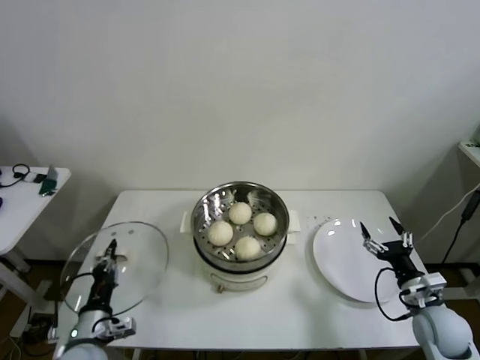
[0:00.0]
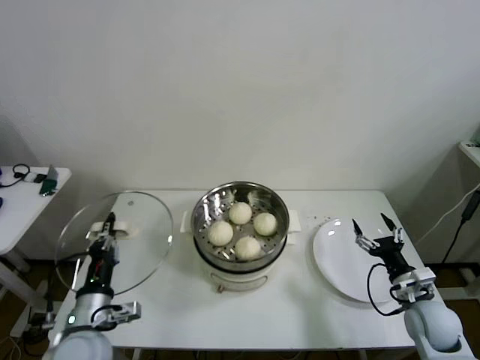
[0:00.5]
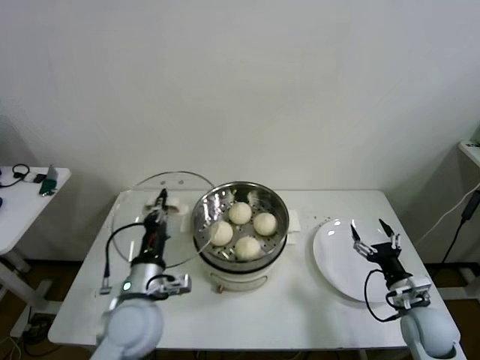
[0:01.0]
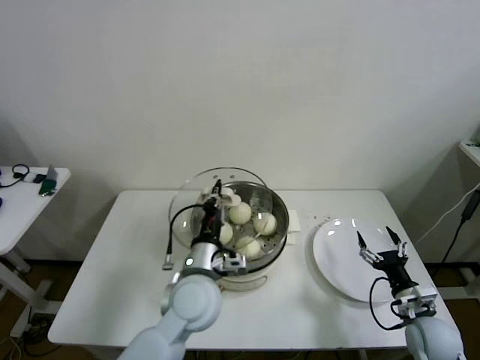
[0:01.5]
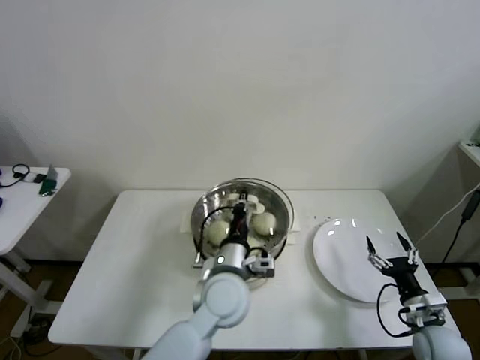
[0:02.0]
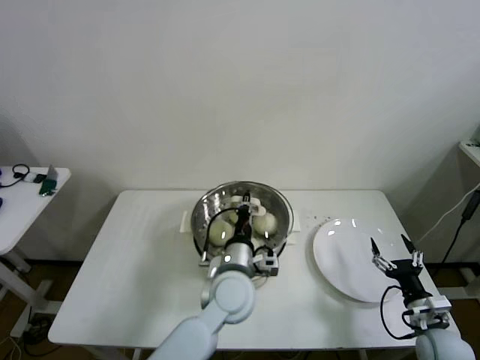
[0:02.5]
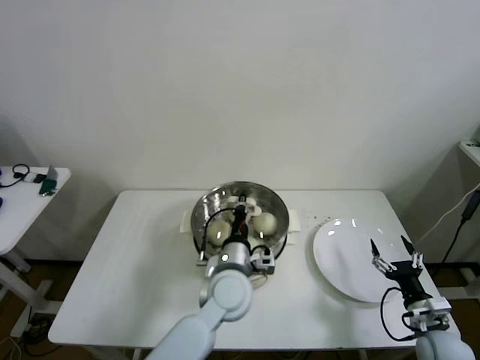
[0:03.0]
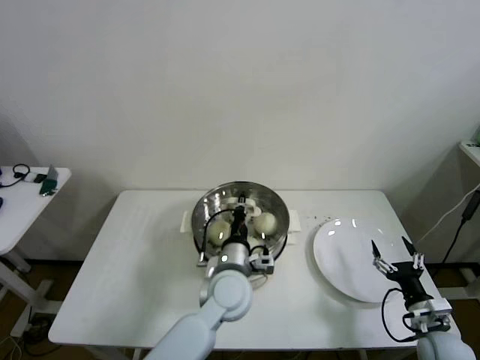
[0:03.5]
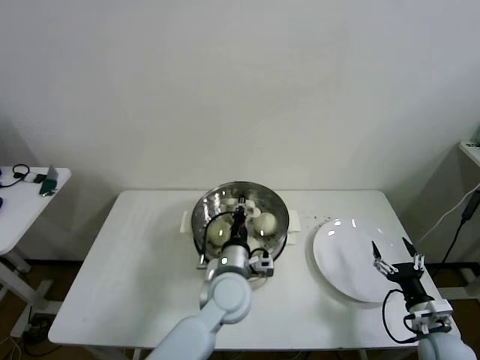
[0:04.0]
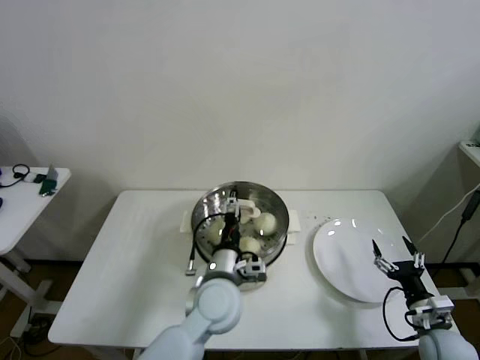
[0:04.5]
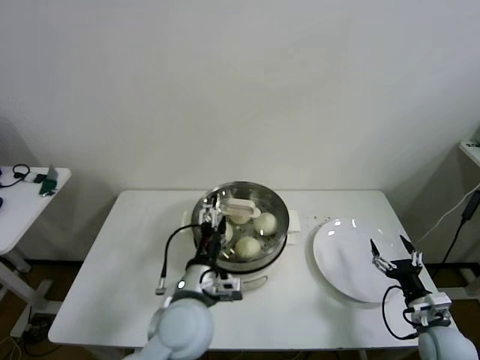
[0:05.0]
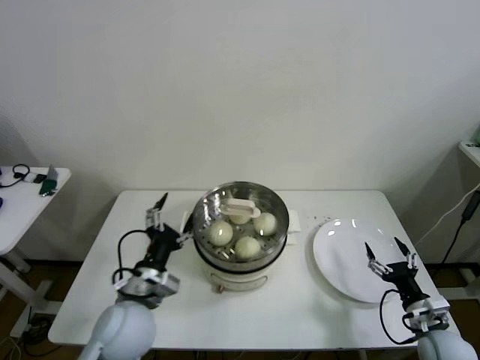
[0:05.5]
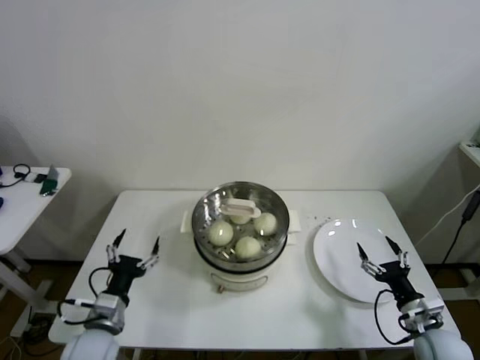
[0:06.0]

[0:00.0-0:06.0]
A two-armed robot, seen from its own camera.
Step, 0:00.0 to 0:03.5: Place the pot lid on the steamer with left gripper.
0:00.0 to 0:02.0: The left gripper goes roughly 30 cm to the right and upward.
0:02.0 to 0:04.0: The grippers move only a little.
0:04.0 to 0:06.0: The left gripper travels to the left by about 25 cm, and opens its fingers.

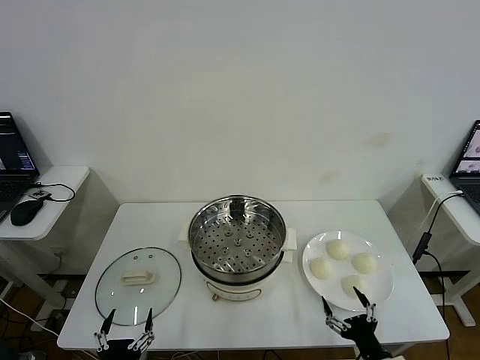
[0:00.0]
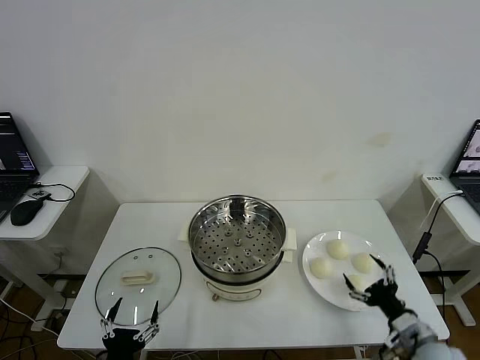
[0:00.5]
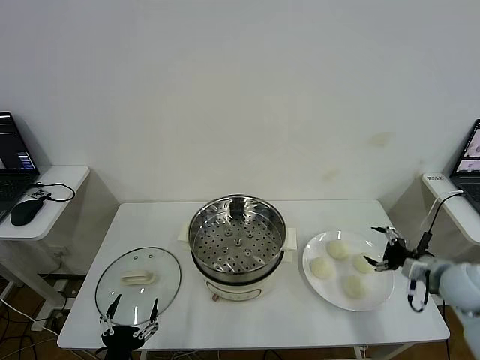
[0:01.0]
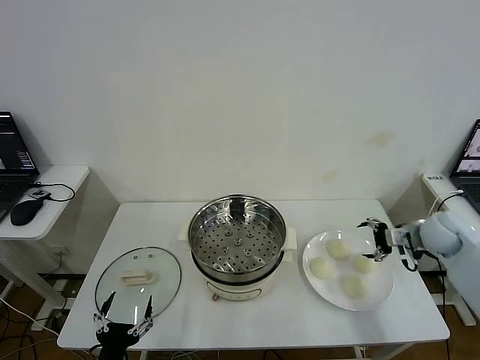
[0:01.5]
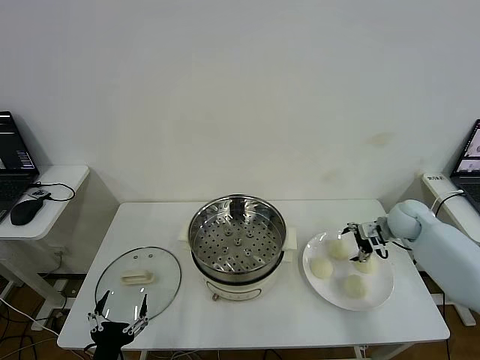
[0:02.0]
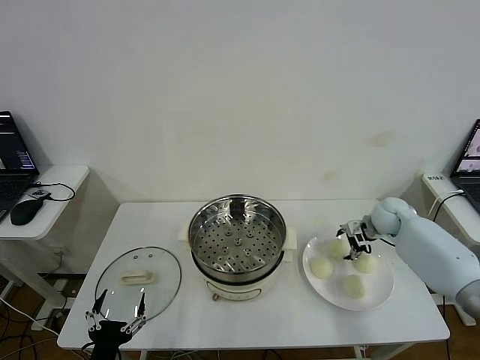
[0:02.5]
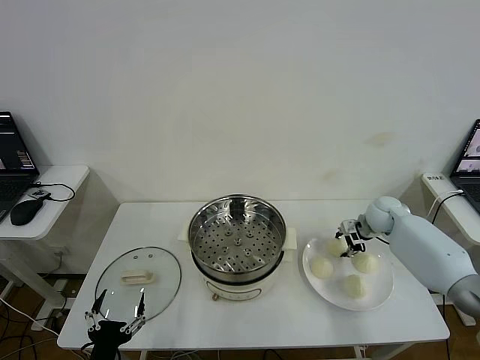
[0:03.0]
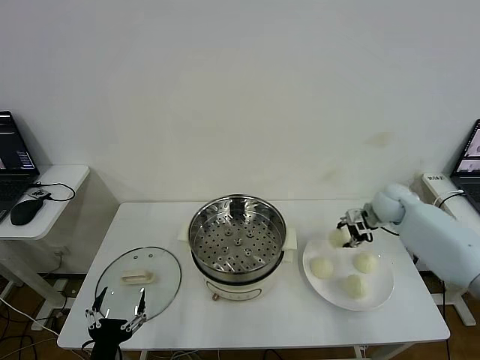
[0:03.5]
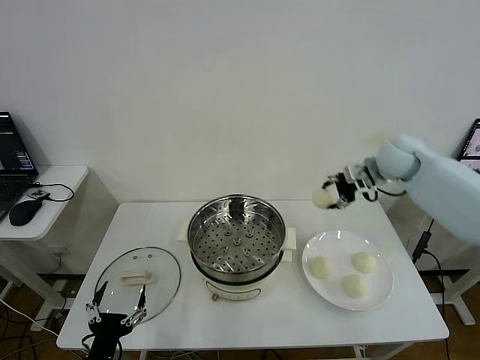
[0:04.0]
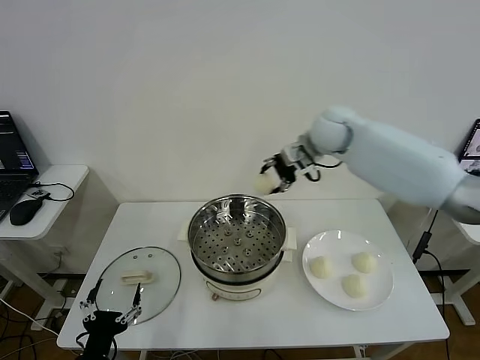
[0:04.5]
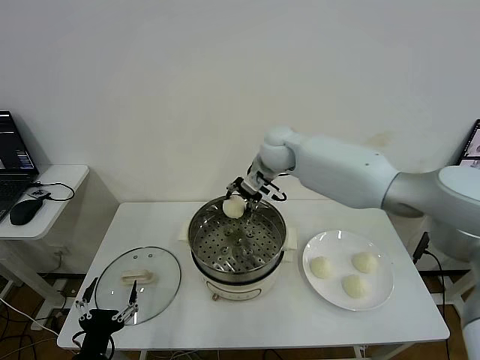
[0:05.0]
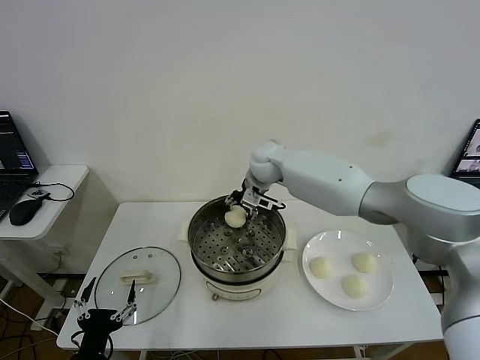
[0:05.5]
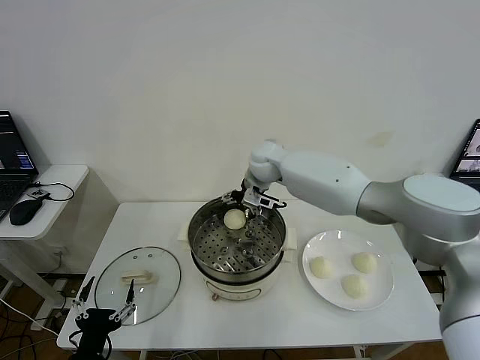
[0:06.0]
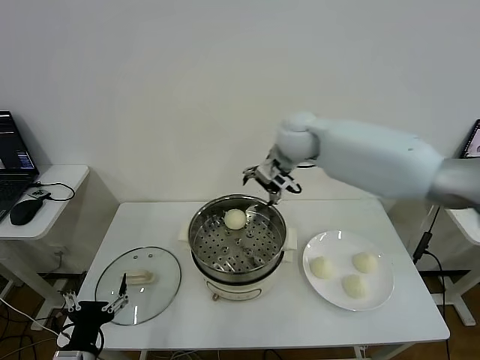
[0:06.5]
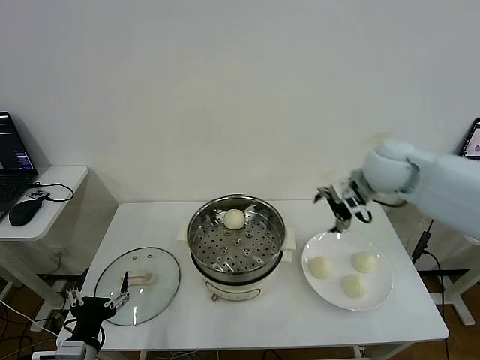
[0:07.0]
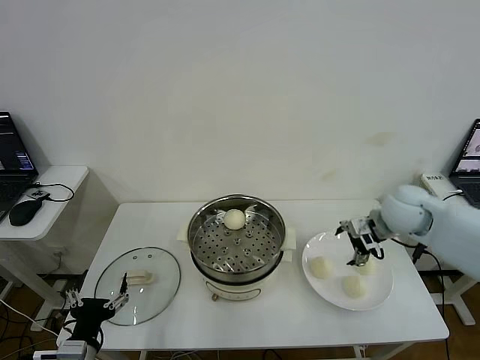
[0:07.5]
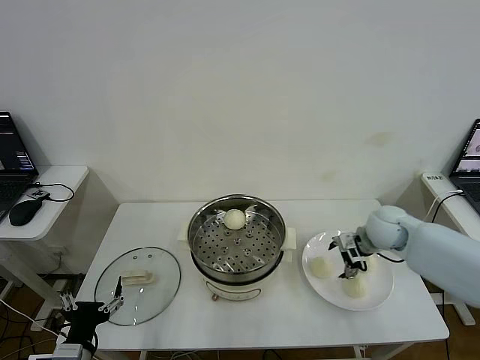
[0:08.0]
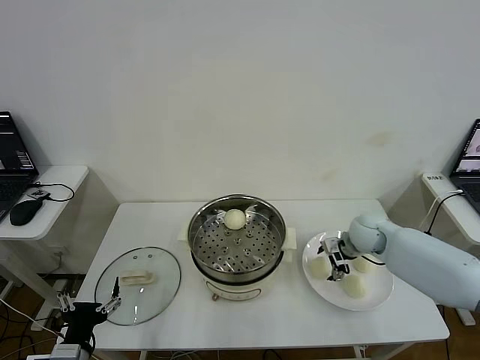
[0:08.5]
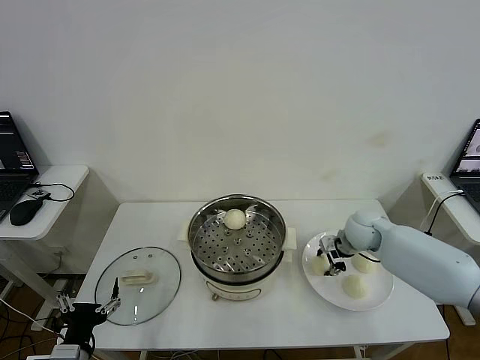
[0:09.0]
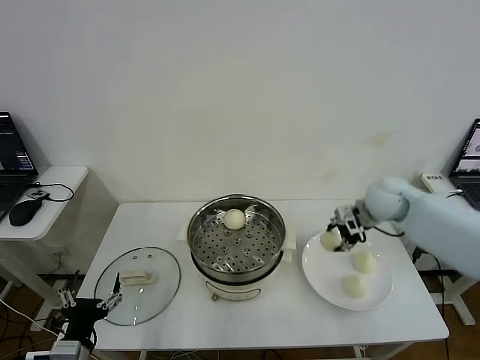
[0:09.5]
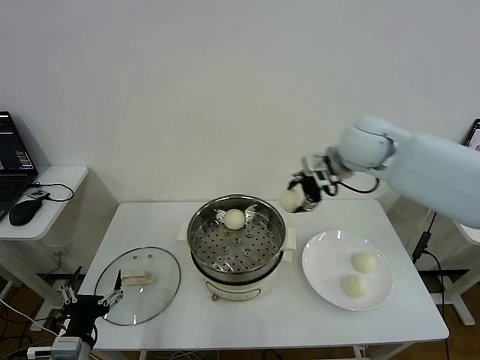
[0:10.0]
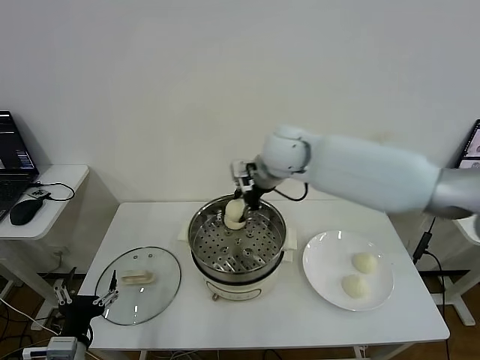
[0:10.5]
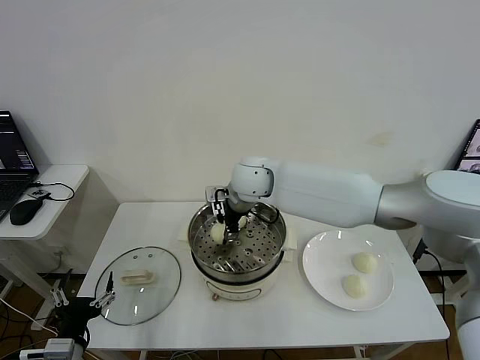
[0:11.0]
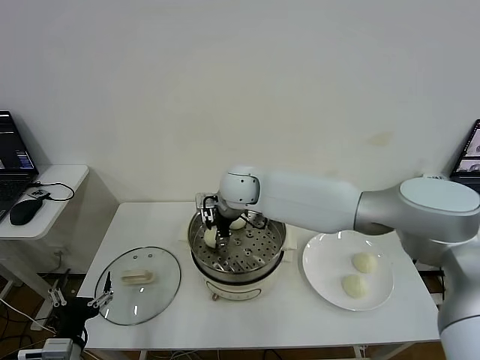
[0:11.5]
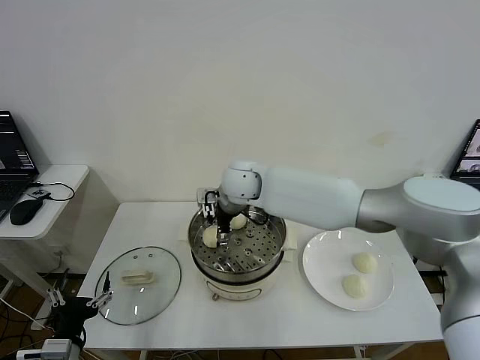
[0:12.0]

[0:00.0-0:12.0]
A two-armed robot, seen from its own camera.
Step, 0:00.0 to 0:02.5: Grasp the baozi in the plate with right gripper.
Step, 0:03.0 to 0:06.0: Place the baozi on the steamer with right gripper.
Step, 0:06.5 to 0:08.5: Grasp the baozi in the plate with right gripper.
0:02.0 to 0:04.0: The right gripper goes about 20 cm upward and to the left, and closes its fingers.
0:04.0 to 0:06.0: The right gripper shifts roughly 25 cm to the left, and opens its fingers.
0:06.0 to 0:08.0: The right gripper shifts about 30 cm to the right, backward and downward.
0:08.0 to 0:10.0: The right gripper heads upward and to the left, covering about 25 cm, and closes up.
0:10.0 to 0:12.0: The right gripper moves to the left and downward, approximately 20 cm, and opens its fingers.

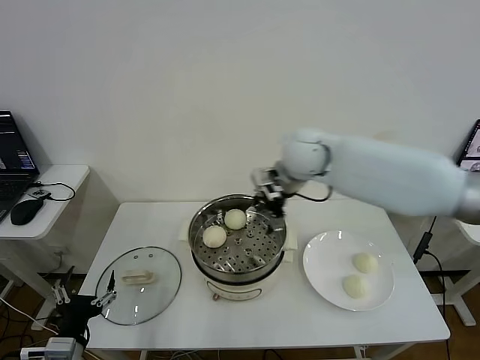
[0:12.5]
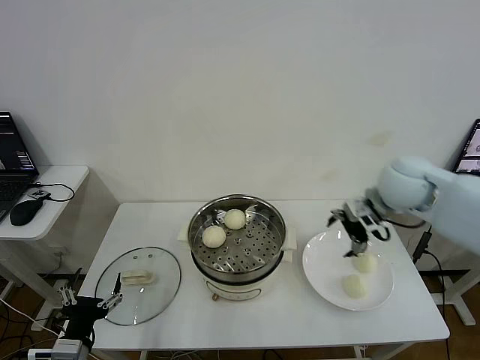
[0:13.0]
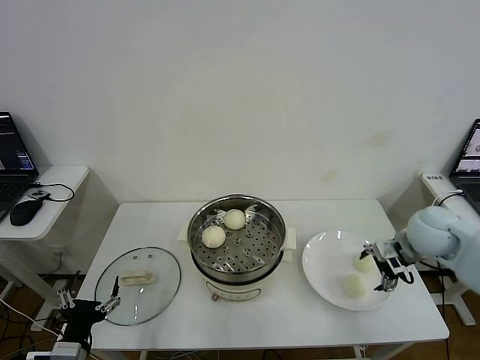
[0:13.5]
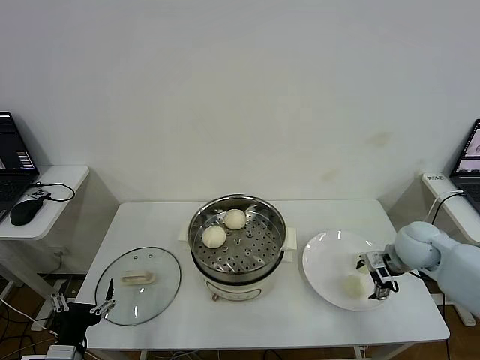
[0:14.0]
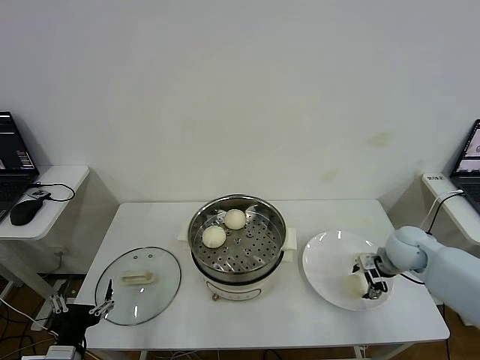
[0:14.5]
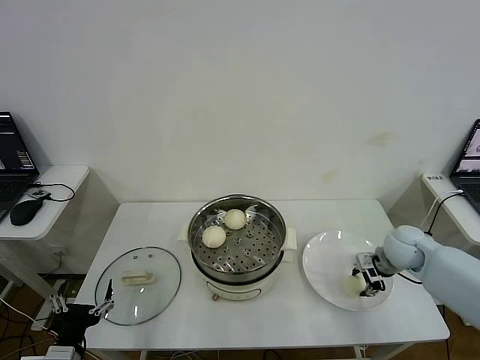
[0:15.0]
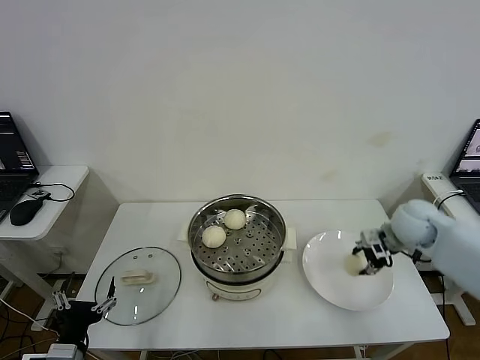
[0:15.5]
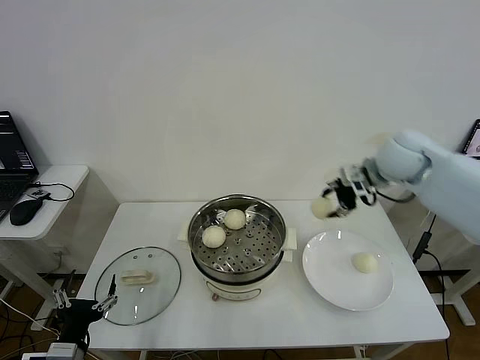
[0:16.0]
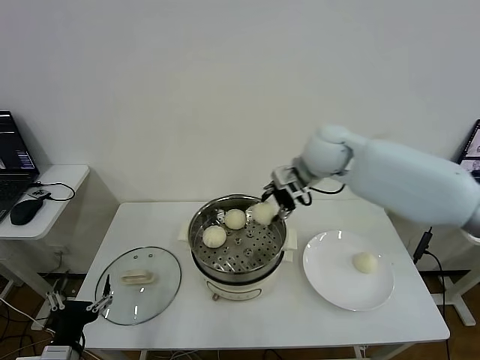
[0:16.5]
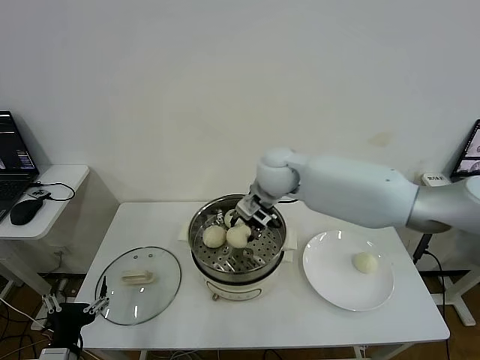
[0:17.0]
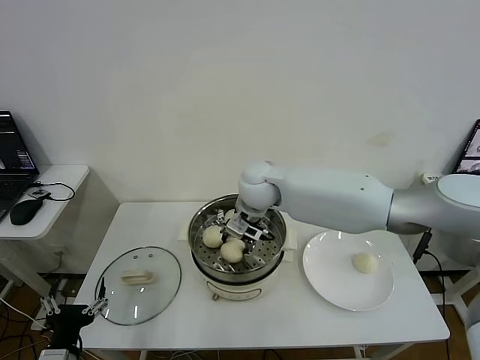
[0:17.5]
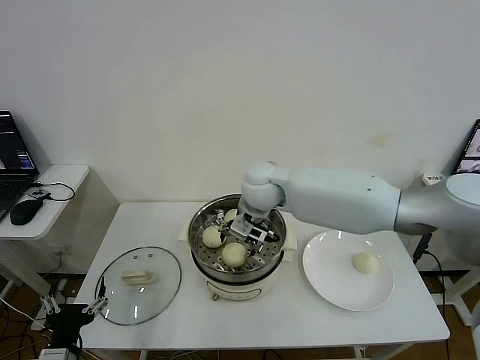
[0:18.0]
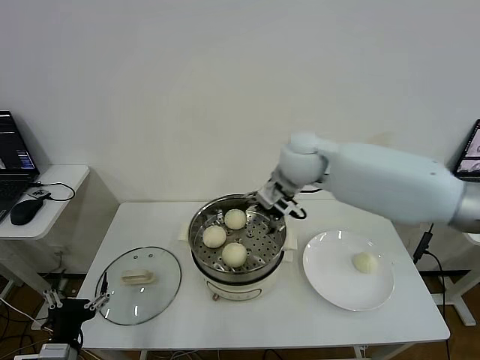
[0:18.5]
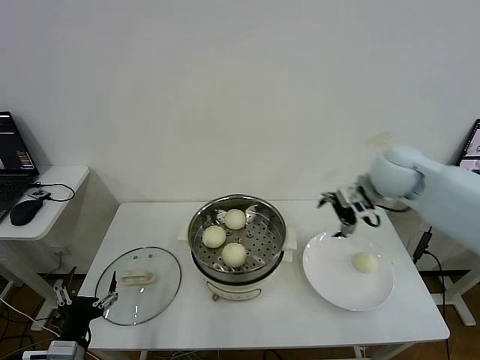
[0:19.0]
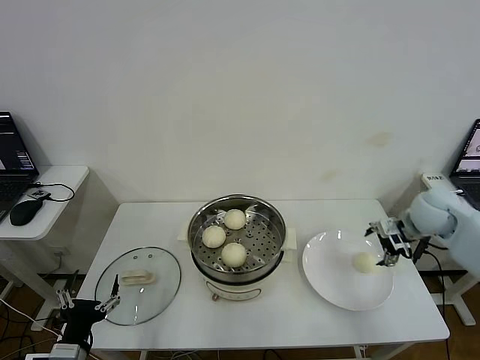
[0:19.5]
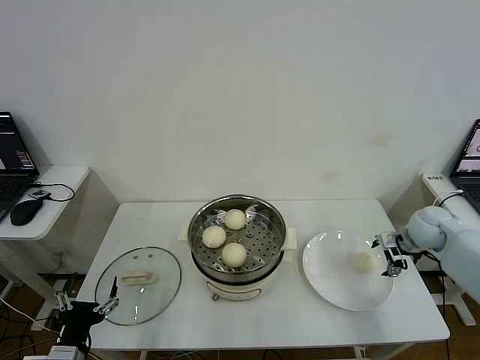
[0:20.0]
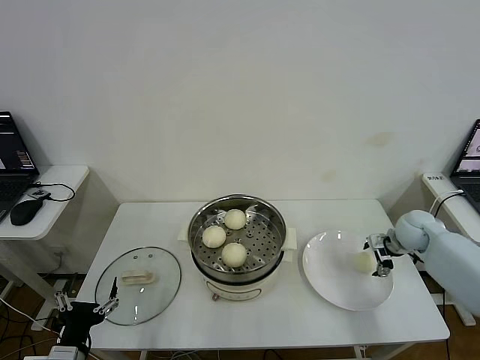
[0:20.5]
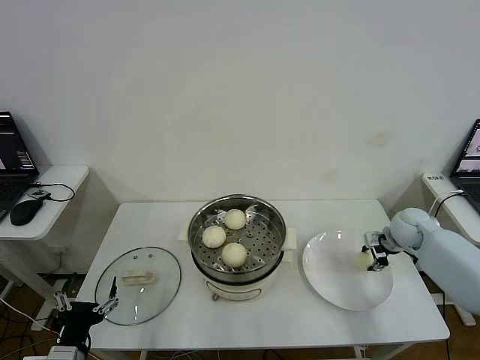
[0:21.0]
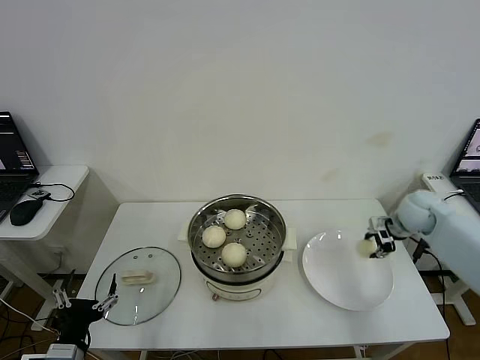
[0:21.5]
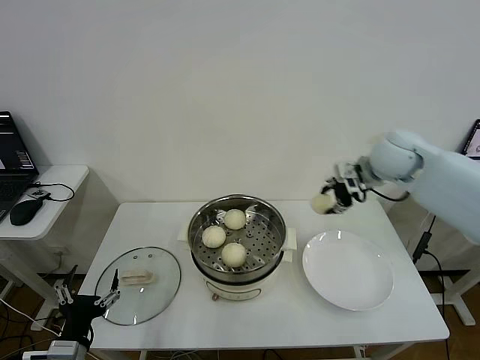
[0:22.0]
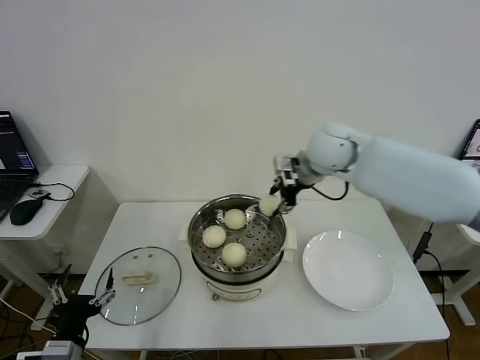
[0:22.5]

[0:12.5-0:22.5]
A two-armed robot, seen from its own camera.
Step, 0:12.5 to 0:15.0: Grasp the baozi in the plate with right gripper.
Step, 0:15.5 to 0:18.0: Place the baozi on the steamer with right gripper.
Step, 0:18.5 to 0:21.0: Grasp the baozi in the plate with right gripper.
0:12.5 to 0:14.5: The right gripper travels to the right and downward by approximately 30 cm, and closes up.
0:14.5 to 0:16.5: The right gripper is displaced to the left and upward by some 30 cm, and closes.
0:16.5 to 0:18.5: The right gripper reaches some 10 cm to the left, then returns, and opens.
0:18.5 to 0:20.5: The right gripper heads to the right and downward, covering about 35 cm.
0:20.5 to 0:22.5: The right gripper moves to the left and upward, about 35 cm, and closes its fingers.
